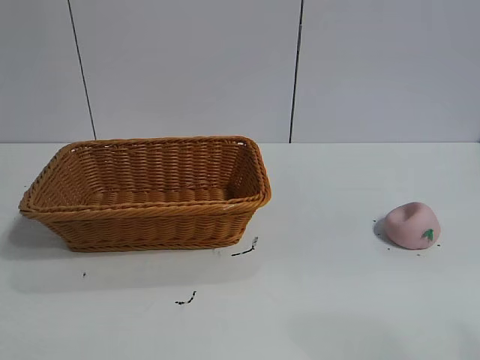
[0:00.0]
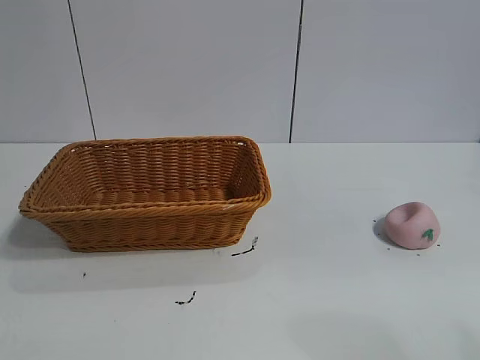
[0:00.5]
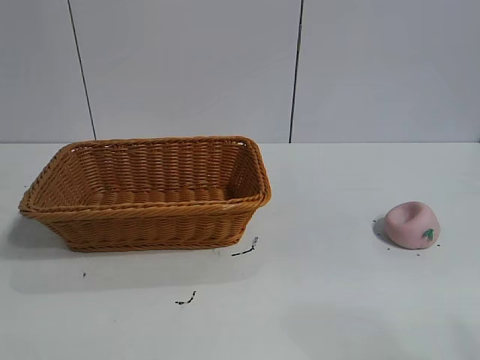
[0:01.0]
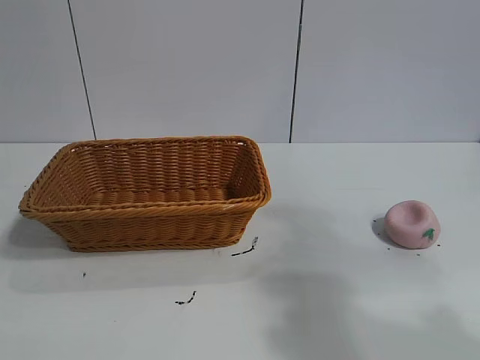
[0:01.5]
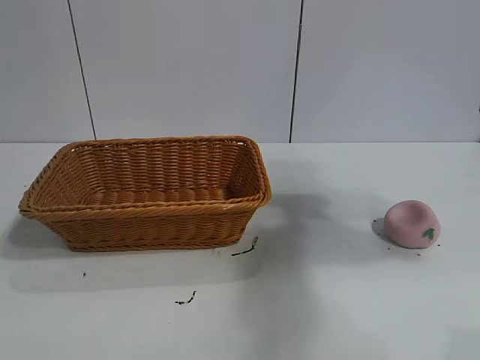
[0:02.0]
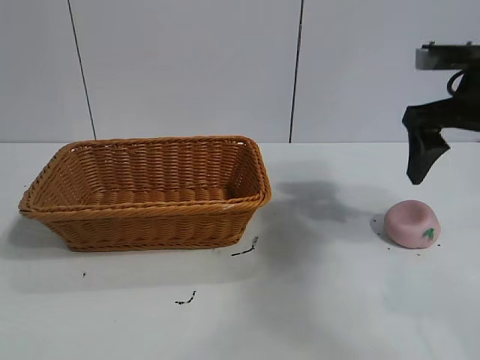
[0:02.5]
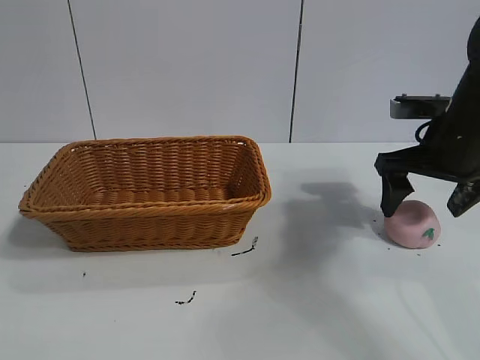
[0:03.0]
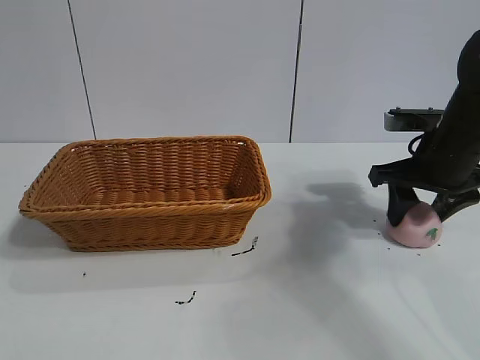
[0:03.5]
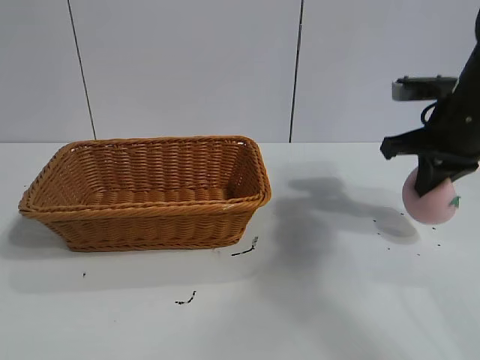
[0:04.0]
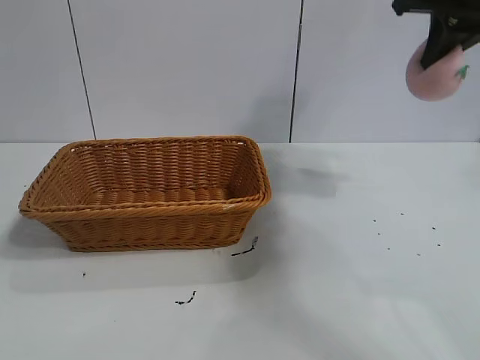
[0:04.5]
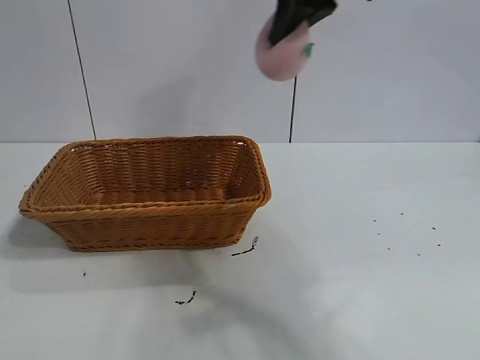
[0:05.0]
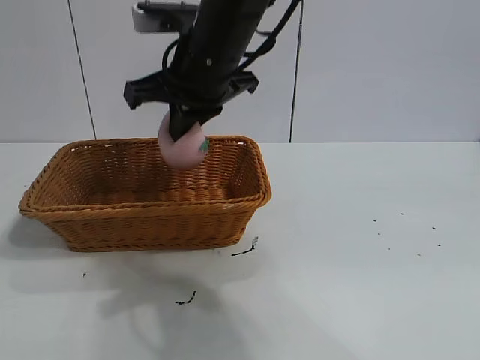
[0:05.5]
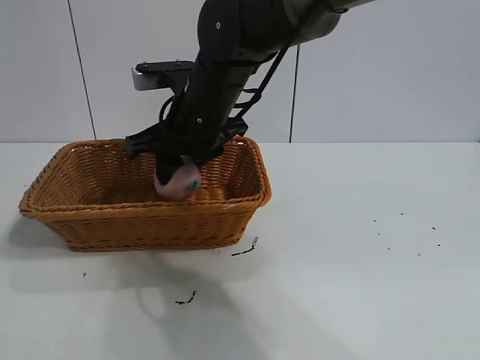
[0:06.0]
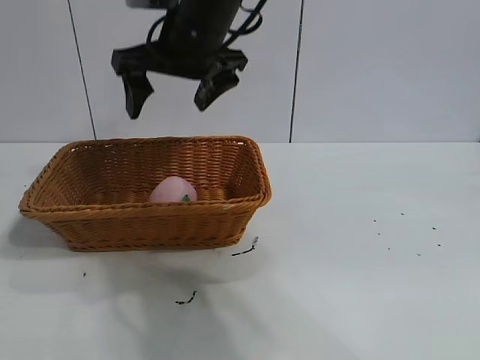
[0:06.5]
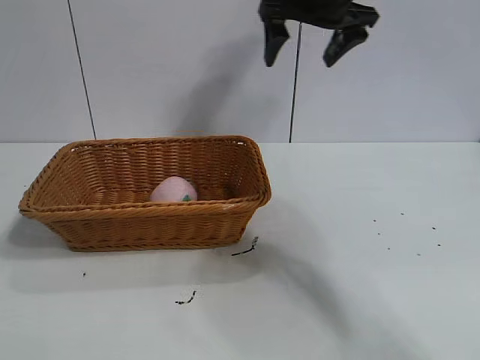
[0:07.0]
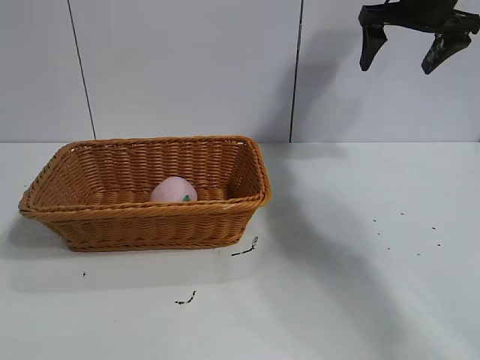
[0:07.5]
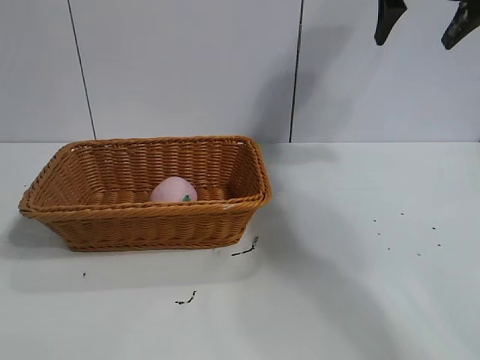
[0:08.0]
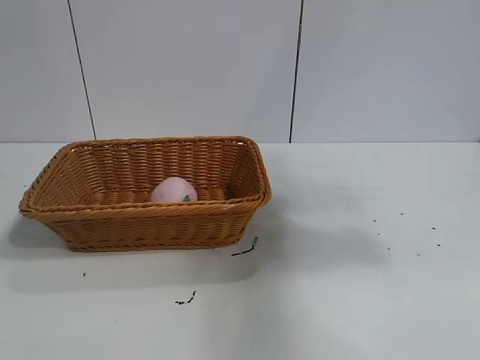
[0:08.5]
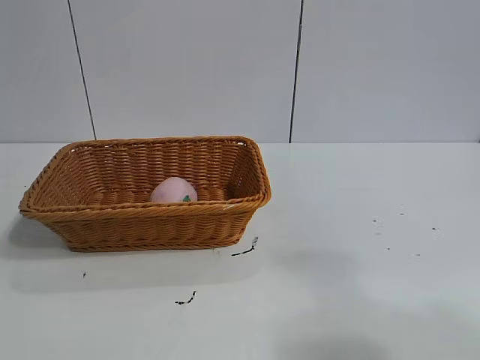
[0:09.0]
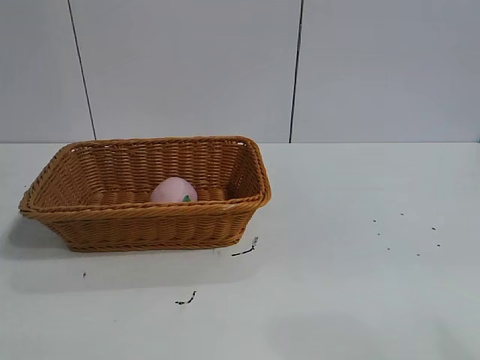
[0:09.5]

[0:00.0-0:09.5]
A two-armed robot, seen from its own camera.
Task of the whole recording: pick up the peach and put it into the basket.
Step, 0:01.0 to 0:03.5: Grasp the peach with right gripper.
Step, 0:04.0 to 0:06.0: Place the peach in the basket with right gripper.

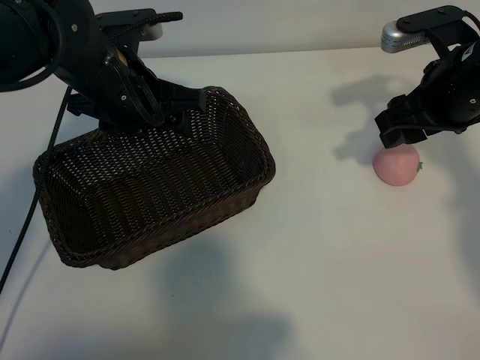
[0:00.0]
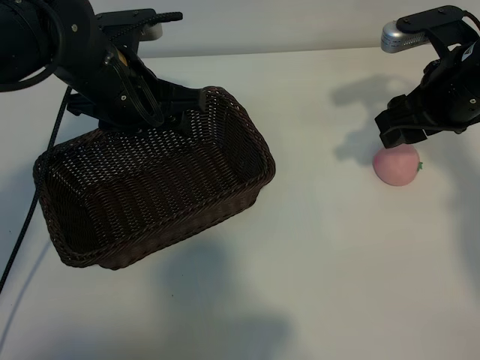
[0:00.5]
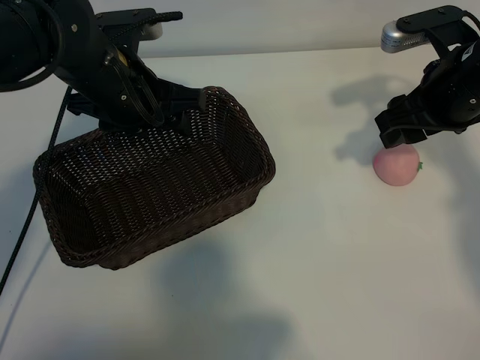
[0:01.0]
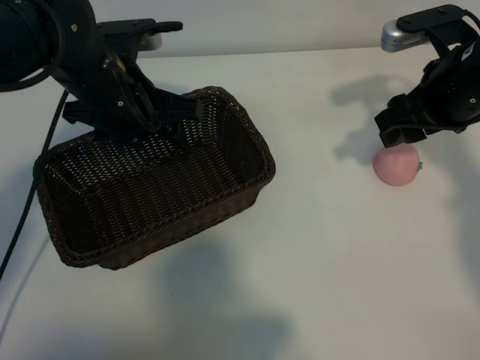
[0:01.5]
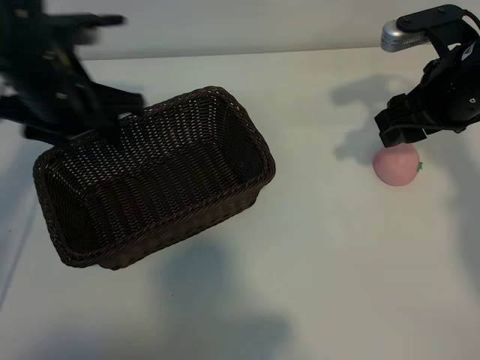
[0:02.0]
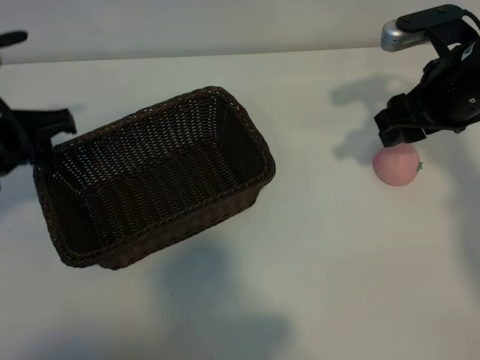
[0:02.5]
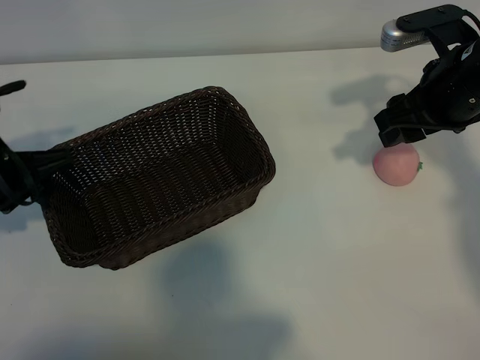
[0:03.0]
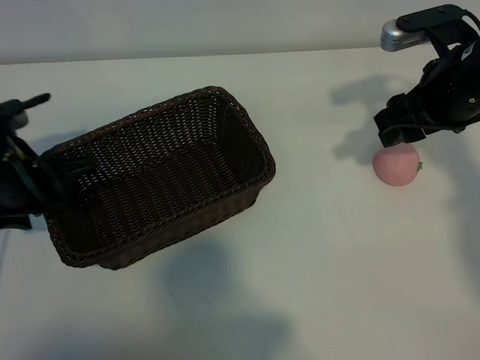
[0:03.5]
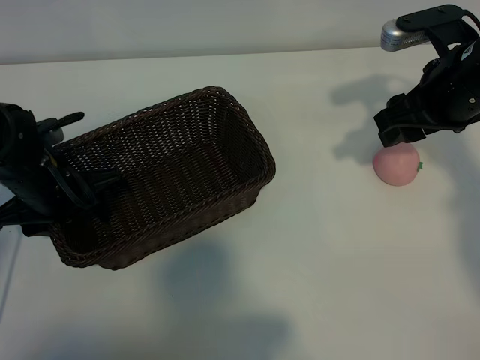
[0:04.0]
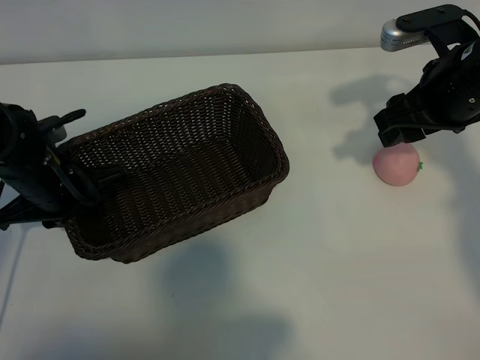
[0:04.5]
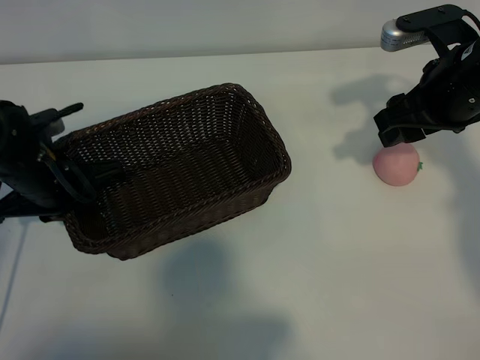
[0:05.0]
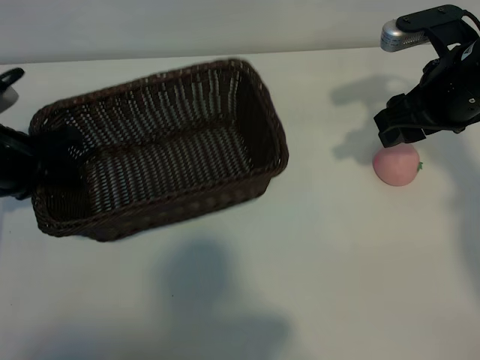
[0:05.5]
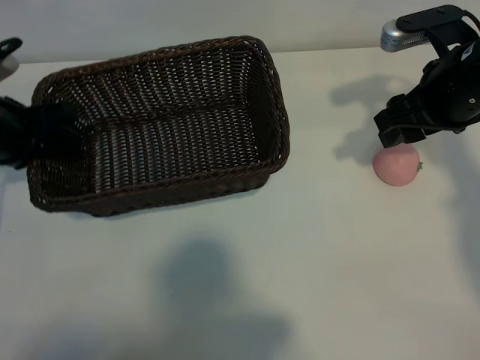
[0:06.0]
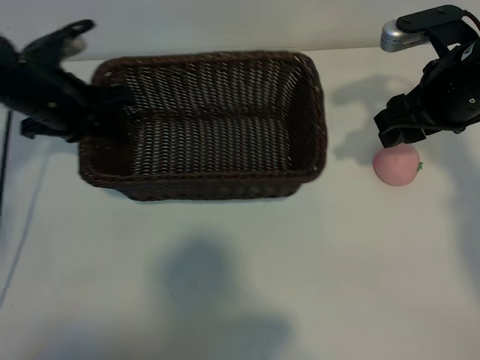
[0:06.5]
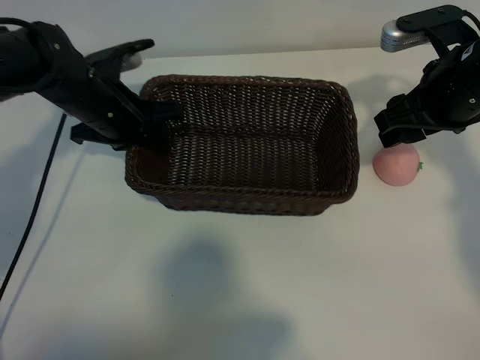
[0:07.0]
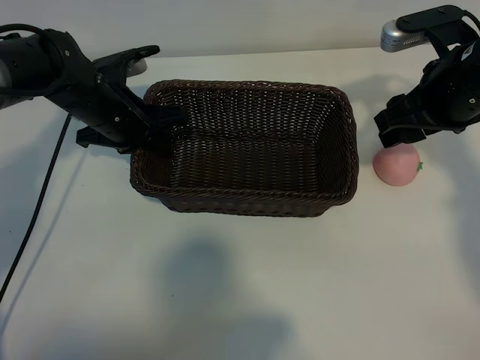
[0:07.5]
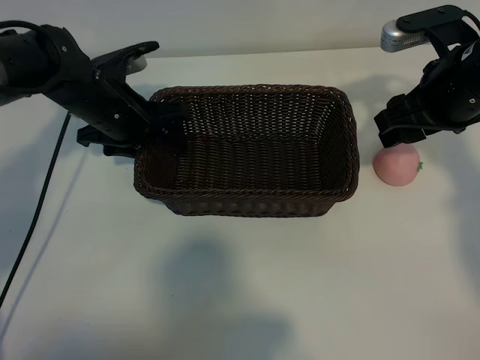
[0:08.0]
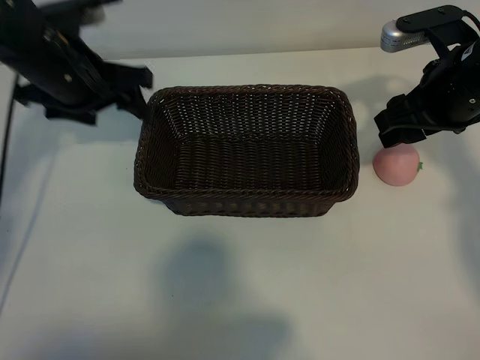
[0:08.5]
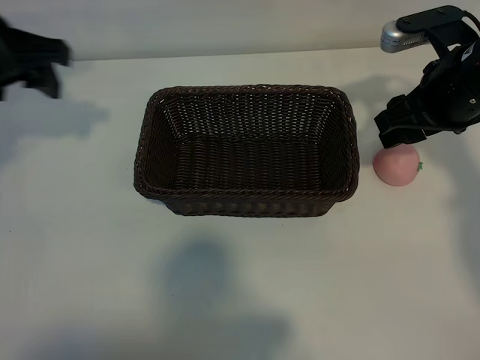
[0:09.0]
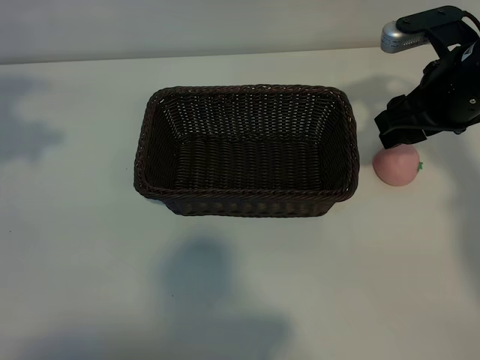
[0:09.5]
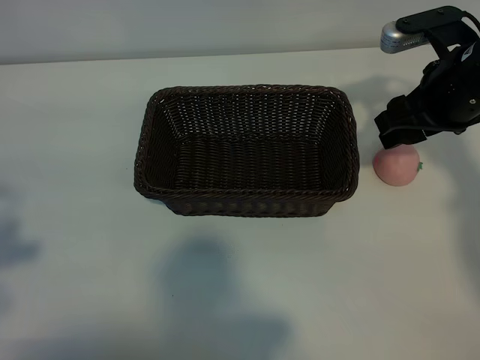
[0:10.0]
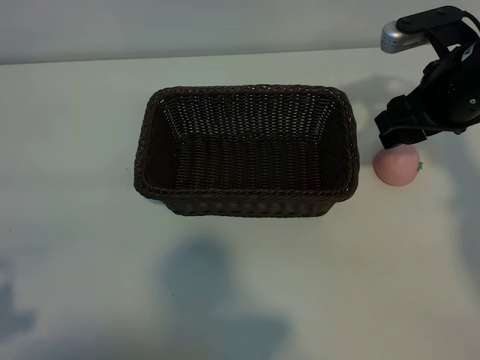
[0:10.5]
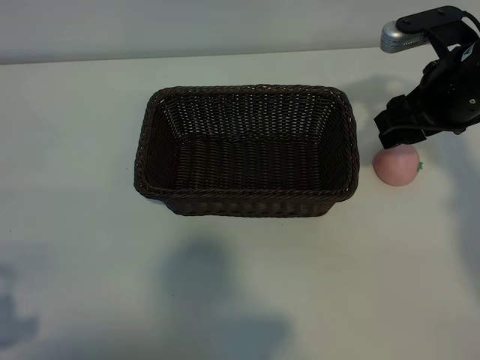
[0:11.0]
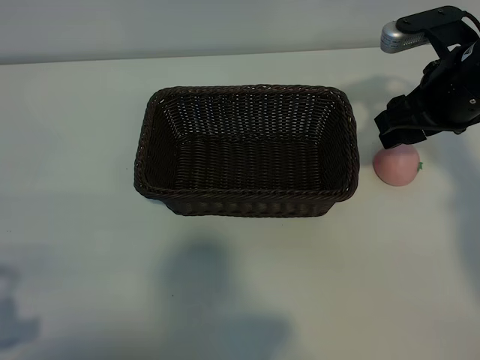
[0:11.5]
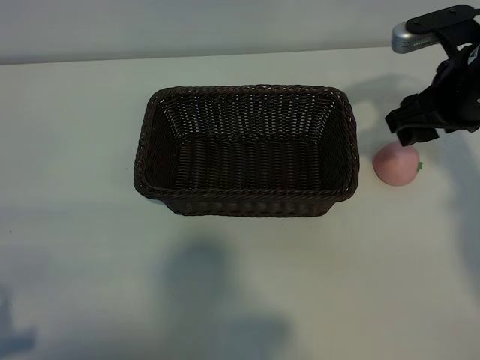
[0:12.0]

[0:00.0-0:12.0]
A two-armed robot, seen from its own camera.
Task of the whole recording: pick up the peach and put it into the basket.
Step, 0:01.5 to 0:04.5: Grasp the basket with left gripper.
Step, 0:05.0 to 0:08.0: Place the basket in the center of view with left gripper.

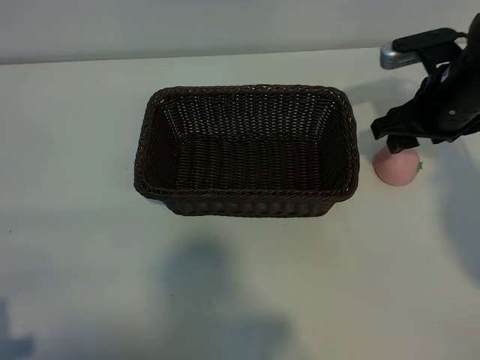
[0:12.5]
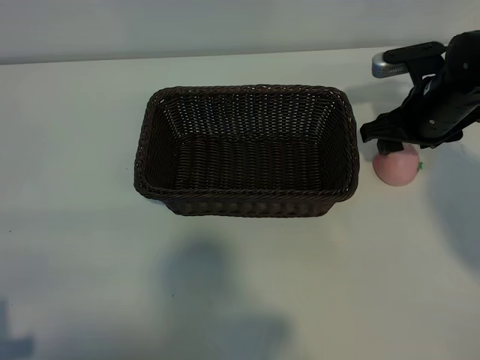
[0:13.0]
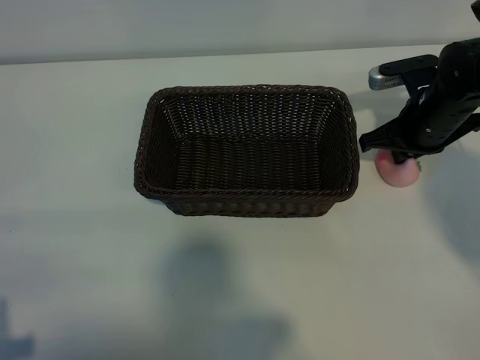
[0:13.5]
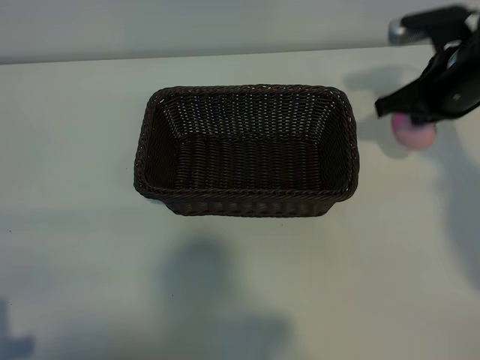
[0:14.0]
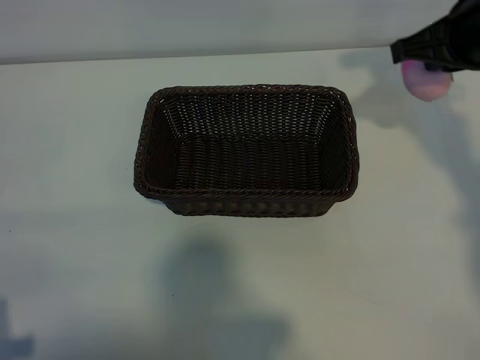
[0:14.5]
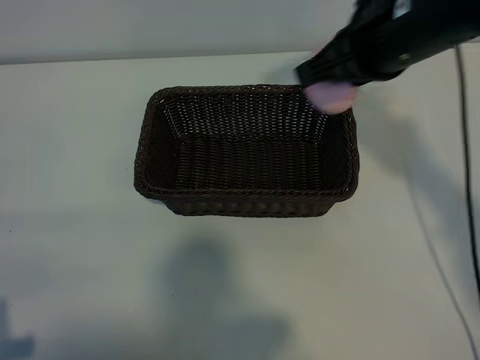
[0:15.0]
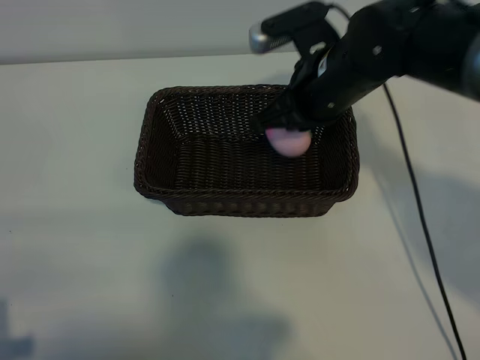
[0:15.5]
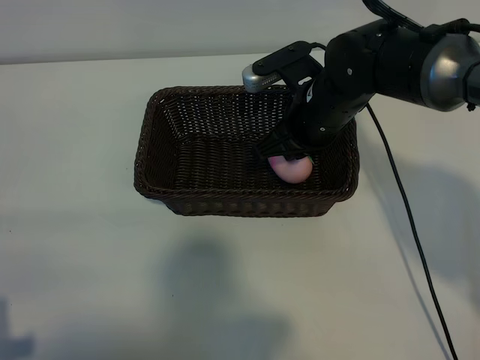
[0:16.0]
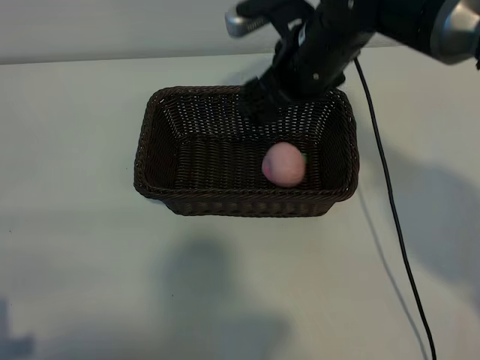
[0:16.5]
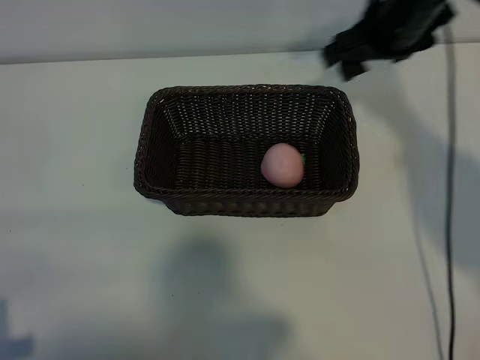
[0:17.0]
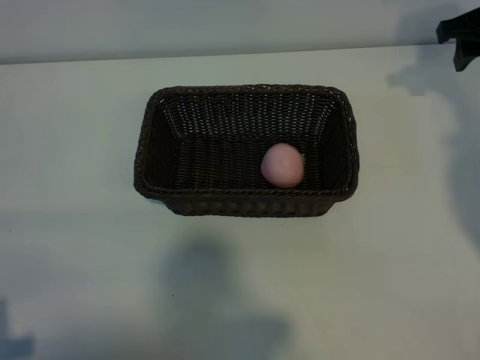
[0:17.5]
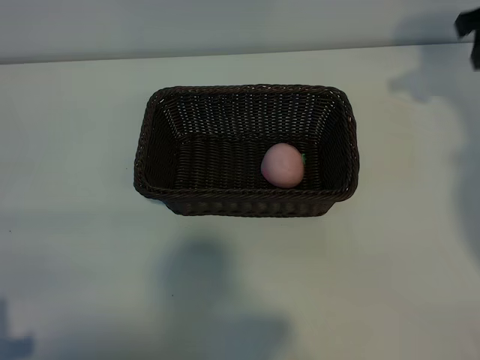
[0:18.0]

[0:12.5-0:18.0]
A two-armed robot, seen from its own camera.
Task of the whole recording: pick up the peach and put it into the basket.
Step, 0:14.0 to 0:16.0: Place the peach in the basket with right gripper.
